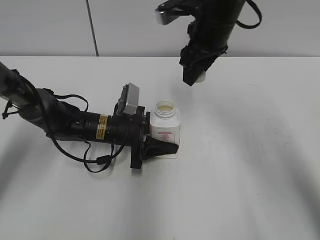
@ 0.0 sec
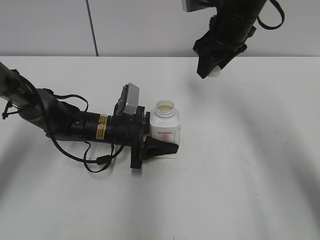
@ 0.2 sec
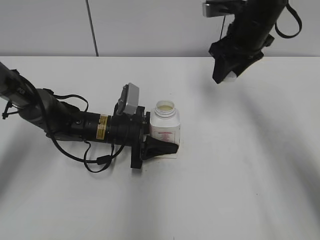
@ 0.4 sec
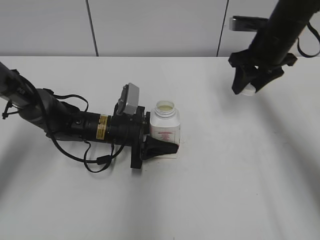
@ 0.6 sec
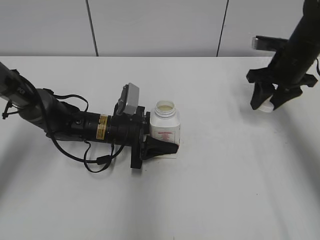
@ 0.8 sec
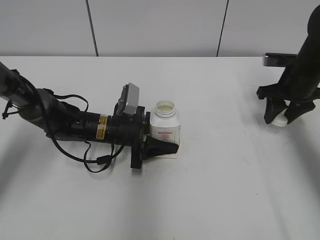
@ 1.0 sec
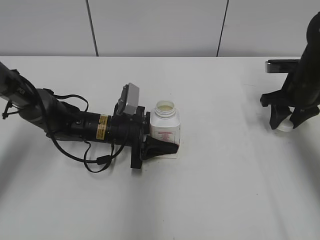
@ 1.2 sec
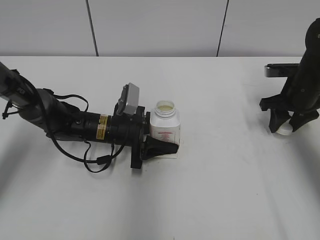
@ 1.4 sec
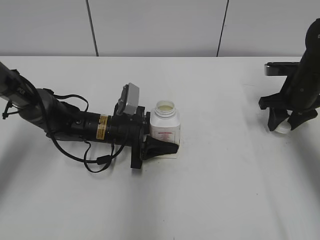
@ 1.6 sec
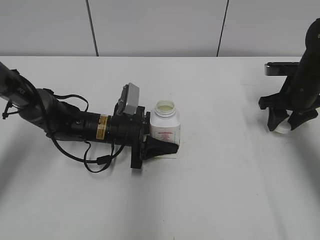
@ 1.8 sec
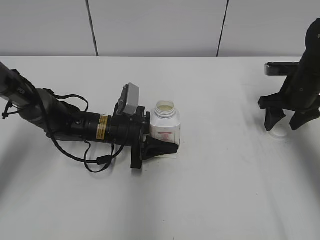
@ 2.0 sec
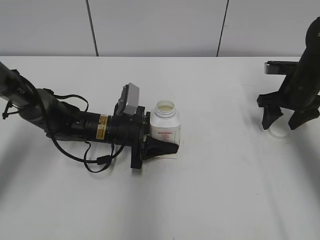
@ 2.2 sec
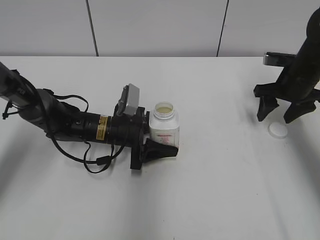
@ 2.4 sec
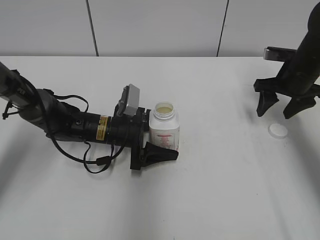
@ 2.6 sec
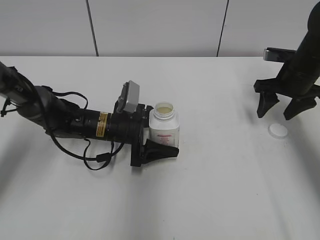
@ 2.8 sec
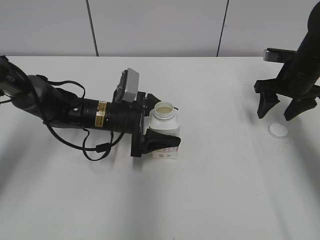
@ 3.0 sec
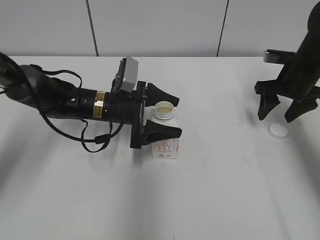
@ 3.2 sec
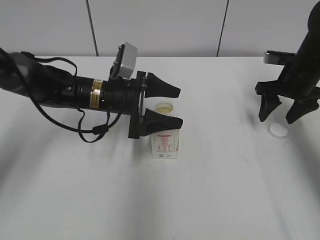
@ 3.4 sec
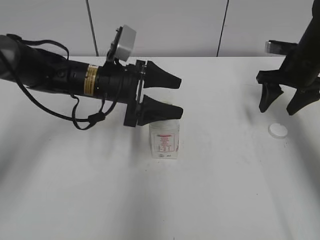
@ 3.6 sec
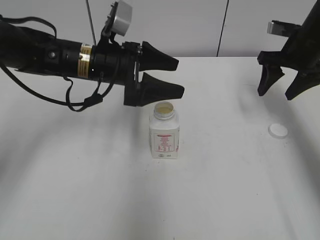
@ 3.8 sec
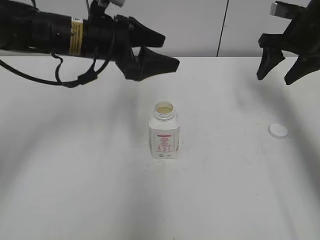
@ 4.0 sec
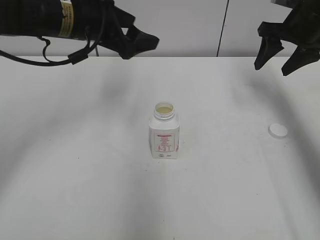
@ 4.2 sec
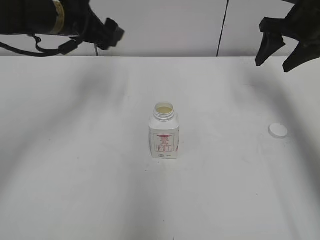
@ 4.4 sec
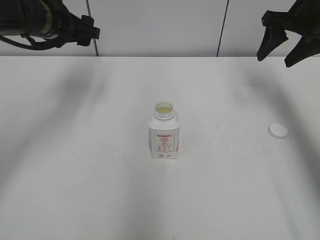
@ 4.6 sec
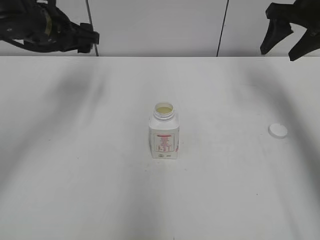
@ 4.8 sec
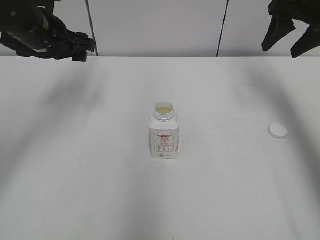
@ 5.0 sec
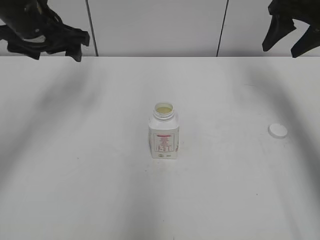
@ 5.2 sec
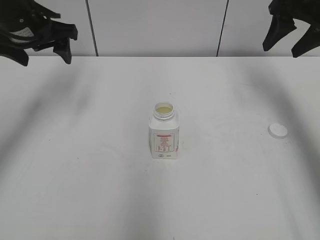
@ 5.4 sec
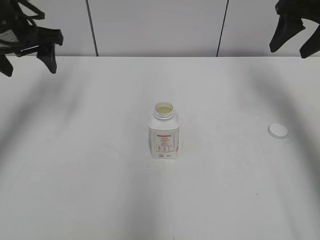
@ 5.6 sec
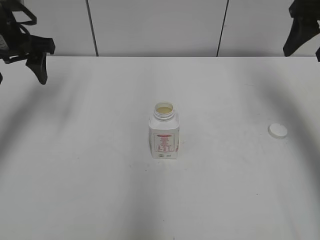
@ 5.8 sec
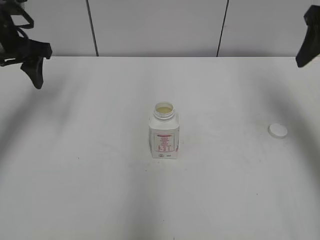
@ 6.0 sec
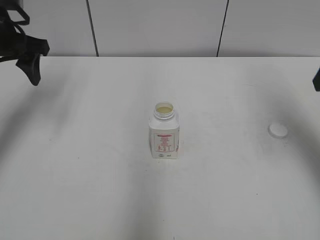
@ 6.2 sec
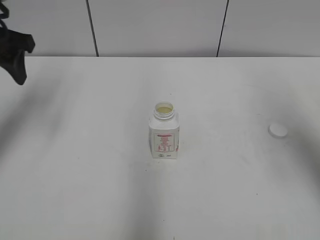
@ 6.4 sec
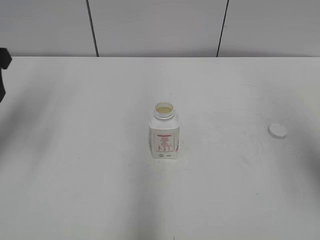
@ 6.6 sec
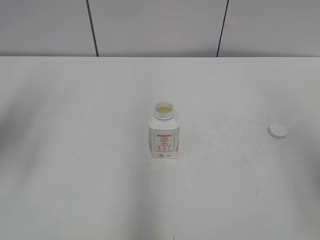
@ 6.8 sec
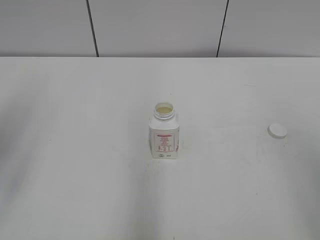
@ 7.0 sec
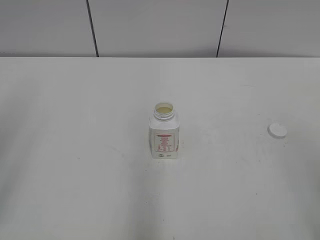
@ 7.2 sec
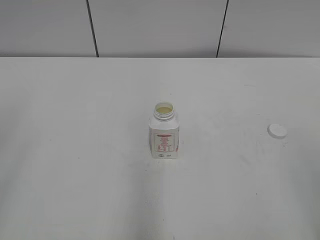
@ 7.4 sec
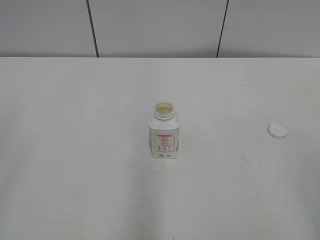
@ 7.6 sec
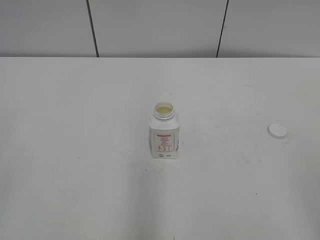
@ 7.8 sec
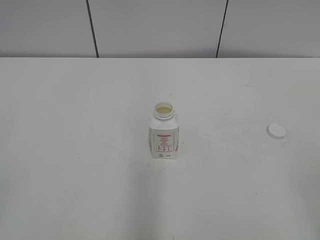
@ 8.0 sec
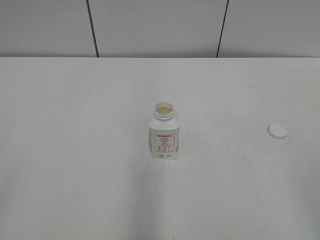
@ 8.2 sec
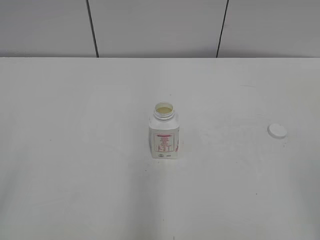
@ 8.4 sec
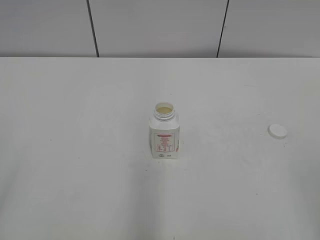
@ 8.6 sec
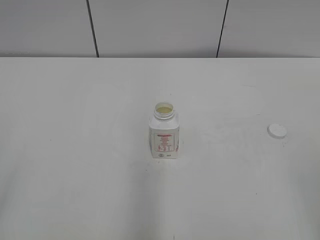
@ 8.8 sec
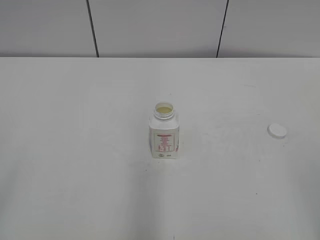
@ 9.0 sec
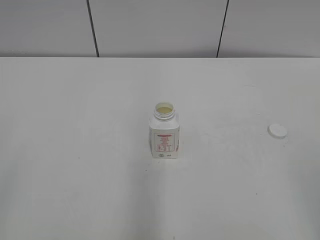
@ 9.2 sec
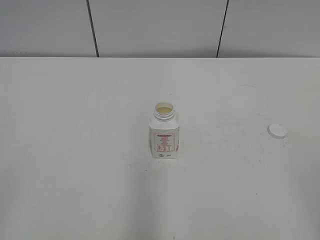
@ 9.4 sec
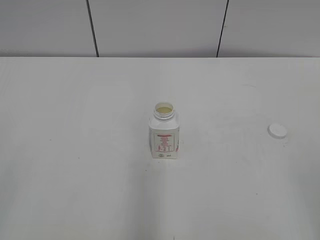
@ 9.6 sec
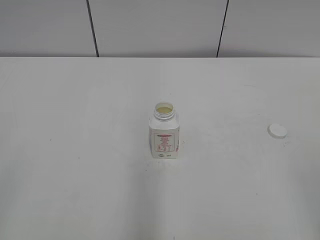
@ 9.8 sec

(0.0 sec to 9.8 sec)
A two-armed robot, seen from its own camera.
Step, 0.0 sec - 2.0 sec: Place the bottle cap on the right.
0.0 sec - 1.4 sec: The right gripper goes roughly 25 cm to the right and downward.
1.4 sec - 2.8 sec: The left gripper opens. The right gripper opens up.
2.8 sec - 4.2 sec: The left gripper is displaced upward by roughly 20 cm. The right gripper moves upward, some 10 cm.
4.2 sec - 5.6 sec: The left gripper is displaced to the left by roughly 10 cm. The right gripper moves upward, about 5 cm.
5.6 sec - 7.0 sec: The right gripper goes about 30 cm backward; the left gripper moves backward, approximately 20 cm, and closes its fingers.
